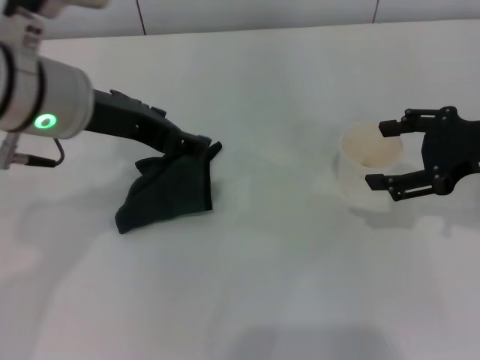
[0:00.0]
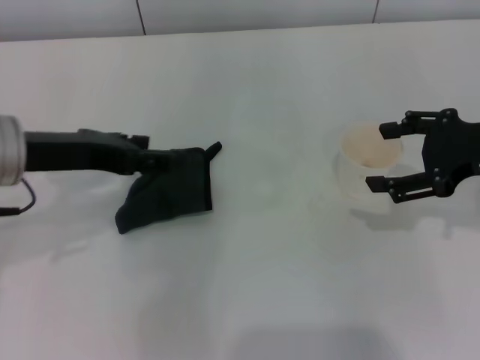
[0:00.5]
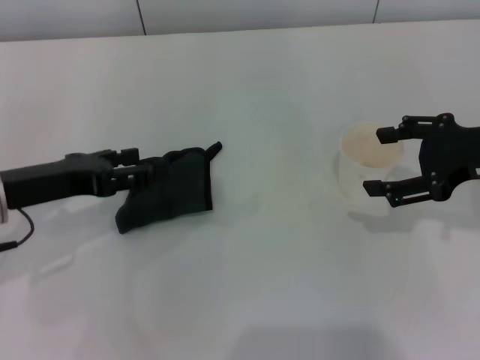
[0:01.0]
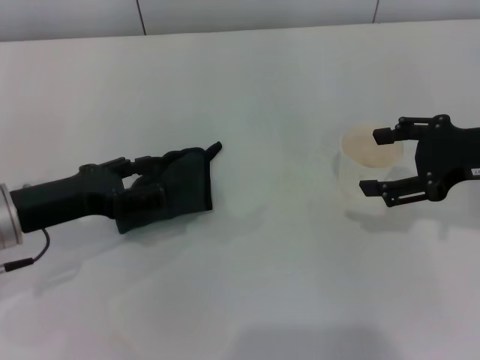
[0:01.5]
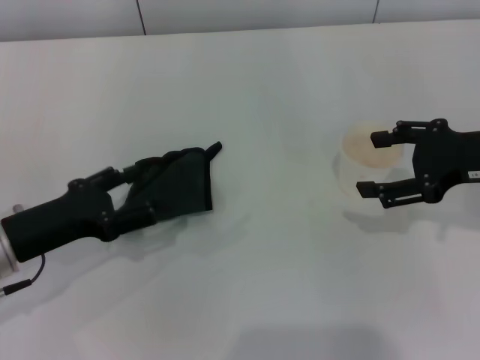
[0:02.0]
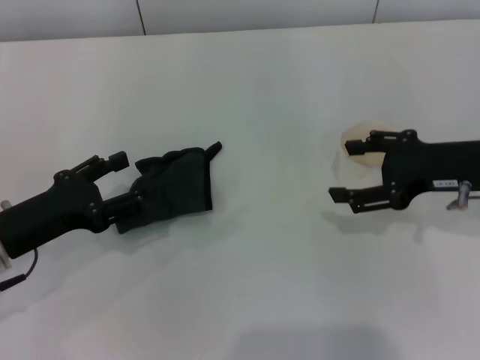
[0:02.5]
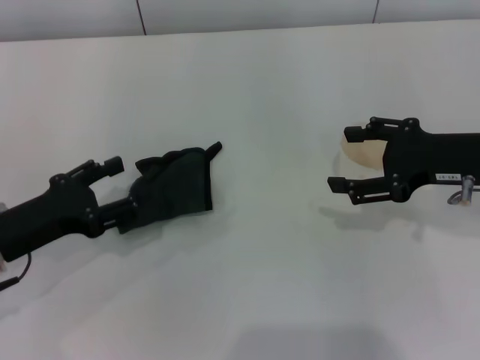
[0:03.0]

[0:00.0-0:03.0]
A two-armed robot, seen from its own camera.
Step, 0:00.0 to 0:01.5: Place the rag on the table with the left gripper.
0:00.0 to 0:01.5: The left gripper shifts approximately 15 cm downward and to the left.
0:01.5 to 0:03.0: There are only small adjustments of the grippers.
